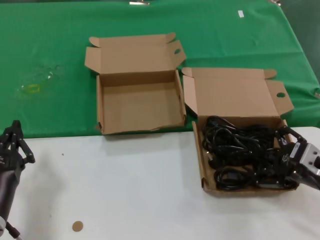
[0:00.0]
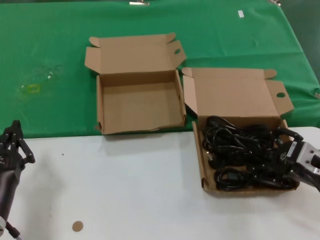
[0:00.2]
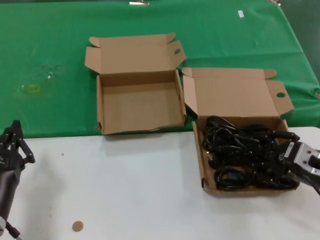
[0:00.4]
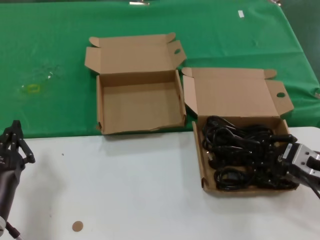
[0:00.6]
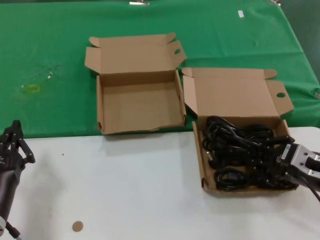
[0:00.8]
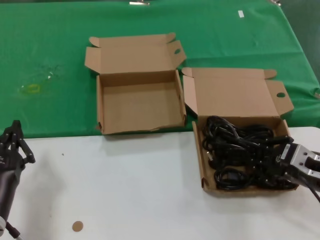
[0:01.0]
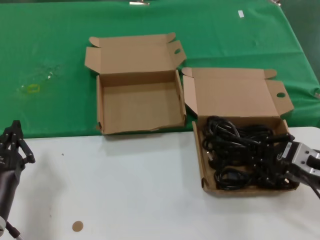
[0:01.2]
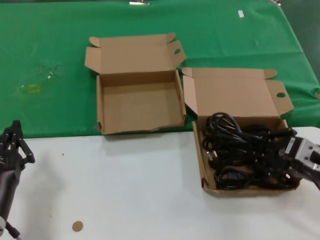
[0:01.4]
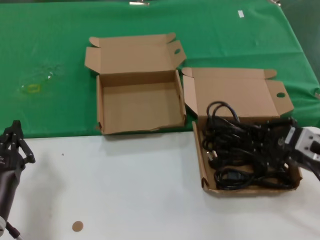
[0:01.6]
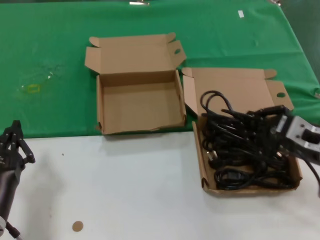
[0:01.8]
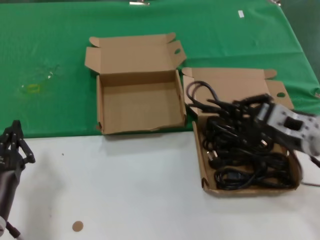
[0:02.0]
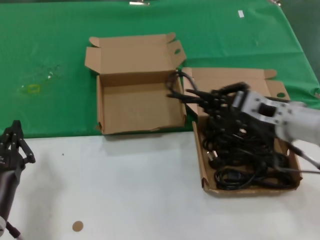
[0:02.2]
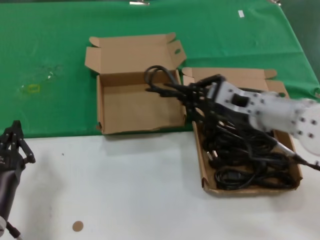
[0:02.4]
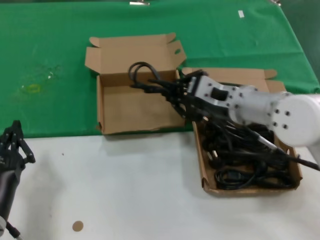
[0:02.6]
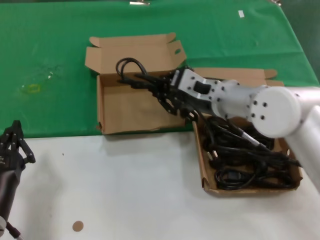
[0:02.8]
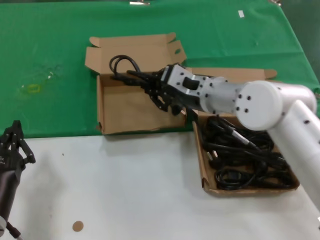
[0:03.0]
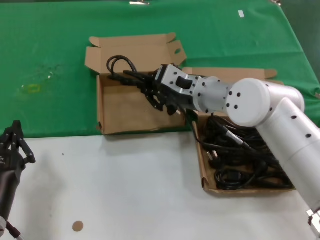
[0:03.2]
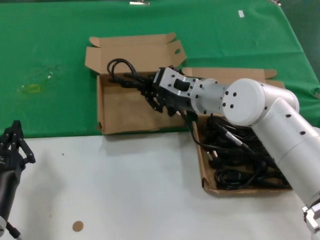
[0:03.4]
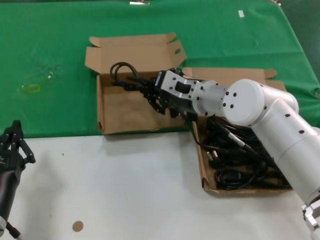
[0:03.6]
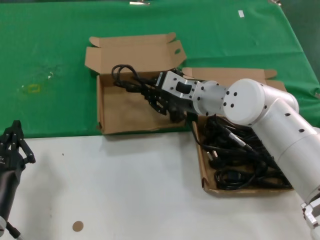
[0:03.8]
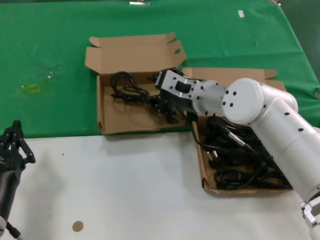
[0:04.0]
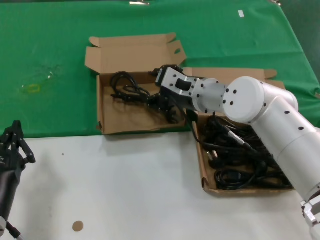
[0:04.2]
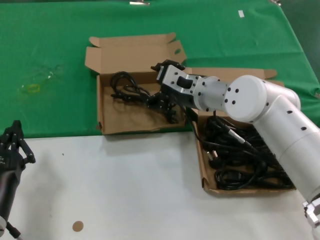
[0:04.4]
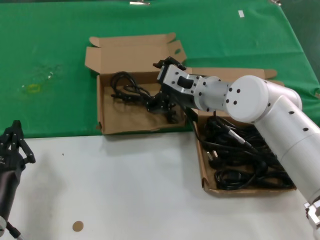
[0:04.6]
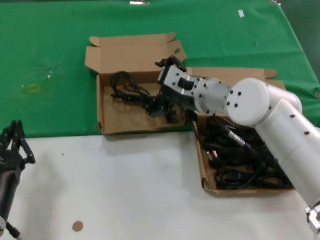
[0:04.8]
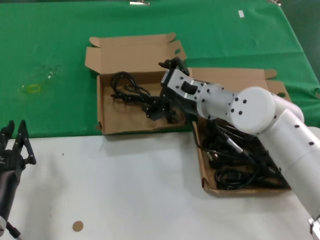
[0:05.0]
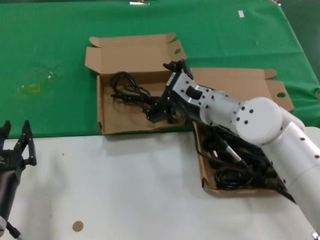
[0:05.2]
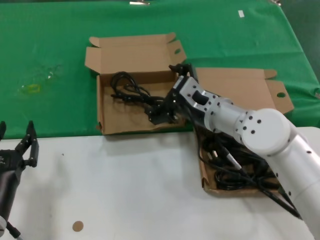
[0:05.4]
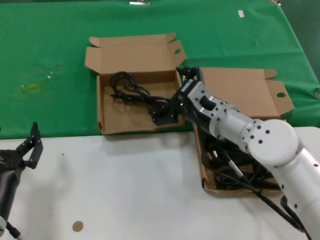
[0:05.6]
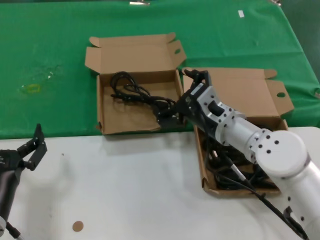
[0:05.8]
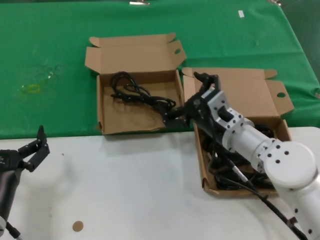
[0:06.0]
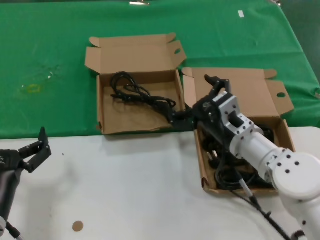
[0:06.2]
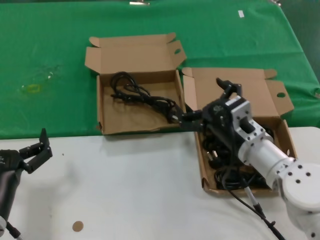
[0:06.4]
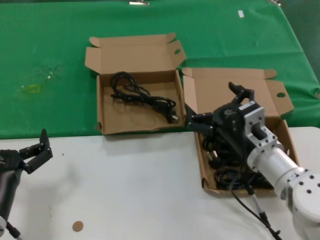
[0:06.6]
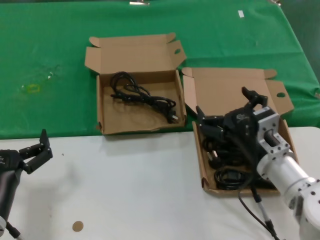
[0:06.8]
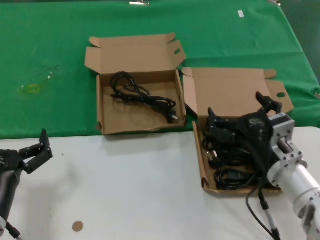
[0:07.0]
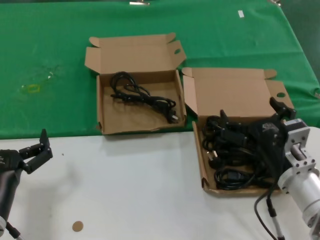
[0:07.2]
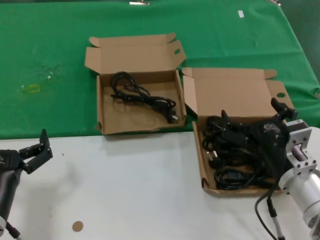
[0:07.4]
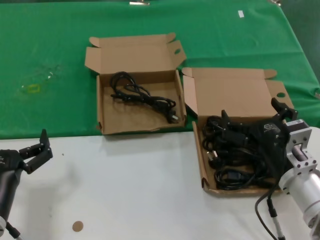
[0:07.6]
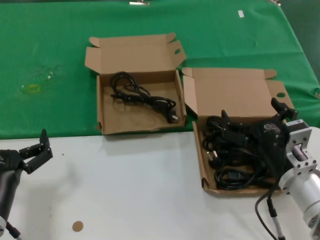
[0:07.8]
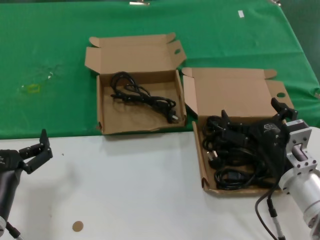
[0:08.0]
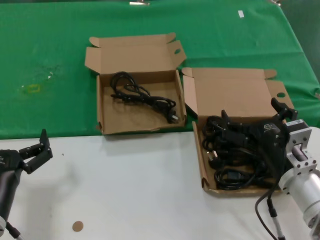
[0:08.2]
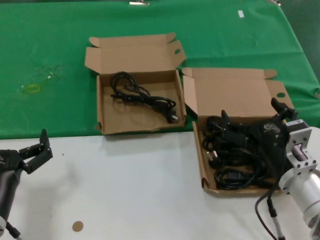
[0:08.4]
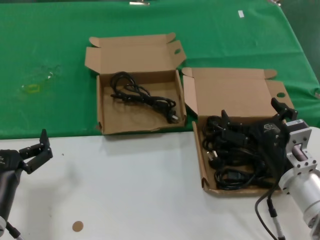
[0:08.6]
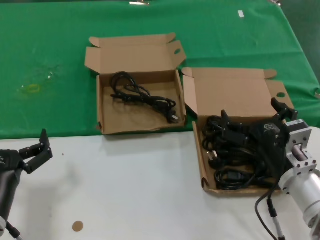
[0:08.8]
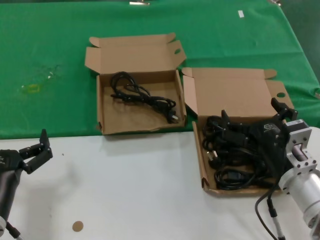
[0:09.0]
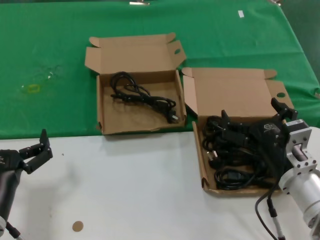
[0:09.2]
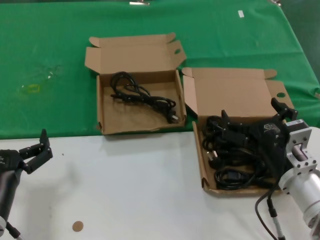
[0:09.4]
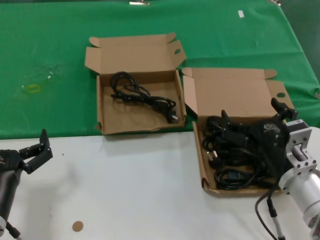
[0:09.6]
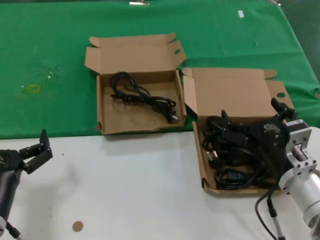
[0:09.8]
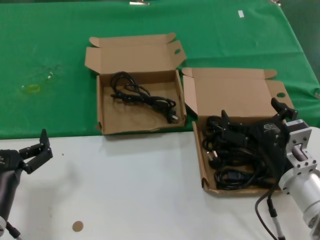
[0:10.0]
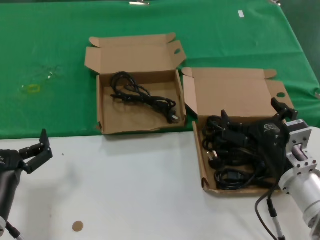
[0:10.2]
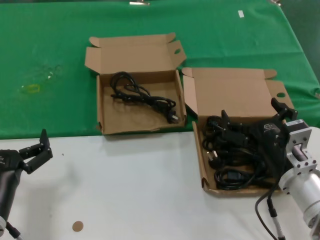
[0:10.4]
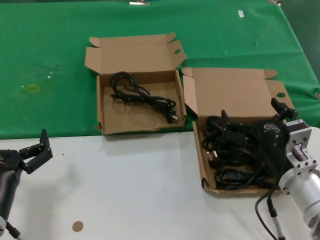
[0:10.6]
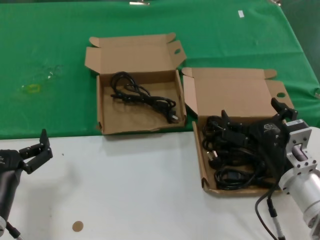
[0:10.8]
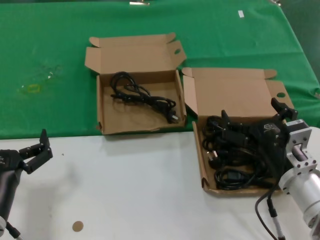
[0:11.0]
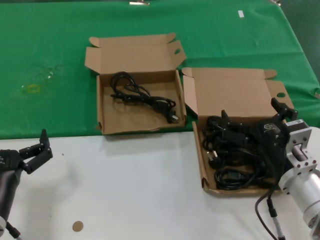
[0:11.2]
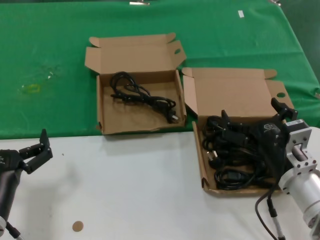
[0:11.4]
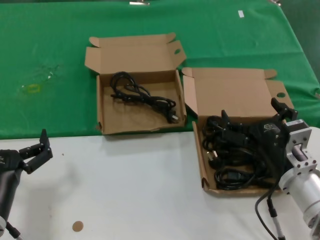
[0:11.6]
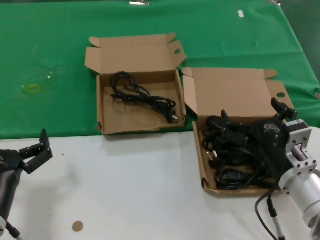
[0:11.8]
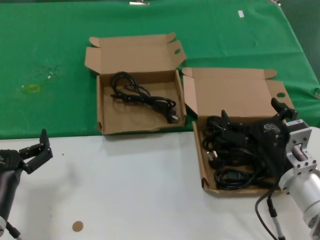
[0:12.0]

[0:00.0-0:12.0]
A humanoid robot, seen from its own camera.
Task of the whole recording: take the parts from the box containing them and put them into an empty box.
Step, 0:01.0 to 0:04.0: Place the data cable in the another box.
0:00.0 to 0:01.6: There are only small adjustments of the hands.
0:01.6 to 0:03.0: The right hand travels to the left and forward by some 25 cm.
0:03.0 to 0:04.4: The hands make only small movements.
0:04.4 to 0:06.0: The right hand heads backward and downward, covering some 10 cm.
0:06.0 to 0:07.6: The right hand is displaced backward and to the right by roughly 15 cm.
0:07.6 to 0:12.0: The two hands keep their place.

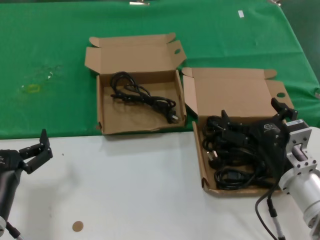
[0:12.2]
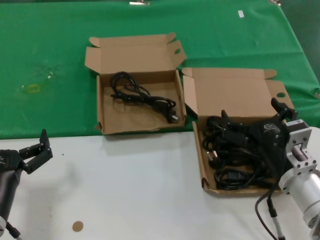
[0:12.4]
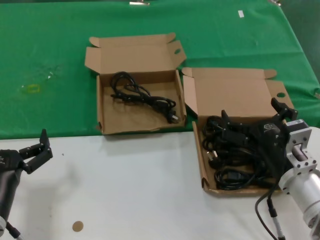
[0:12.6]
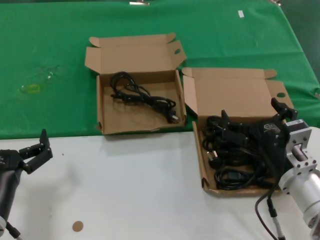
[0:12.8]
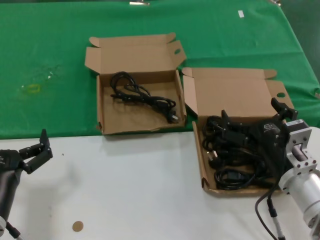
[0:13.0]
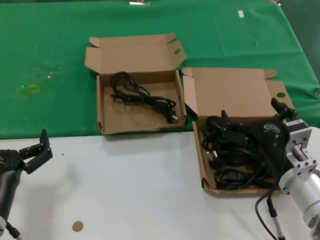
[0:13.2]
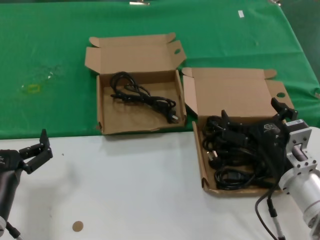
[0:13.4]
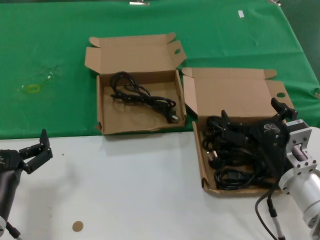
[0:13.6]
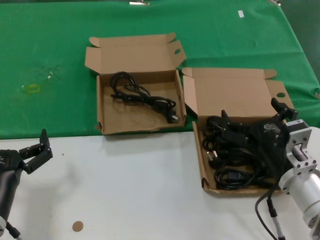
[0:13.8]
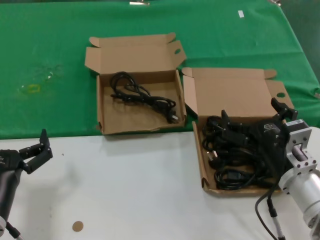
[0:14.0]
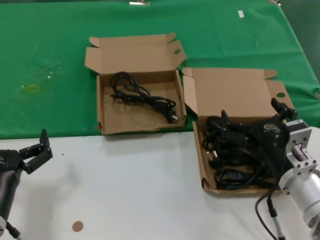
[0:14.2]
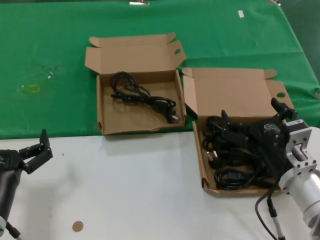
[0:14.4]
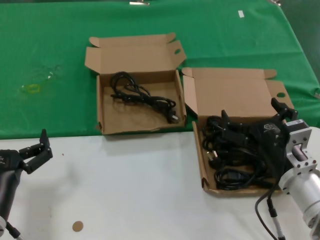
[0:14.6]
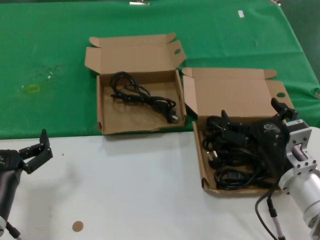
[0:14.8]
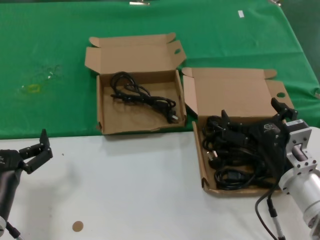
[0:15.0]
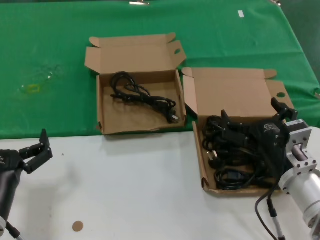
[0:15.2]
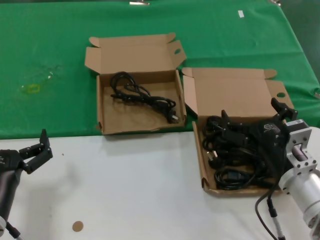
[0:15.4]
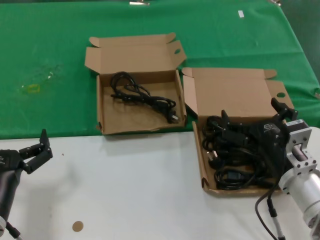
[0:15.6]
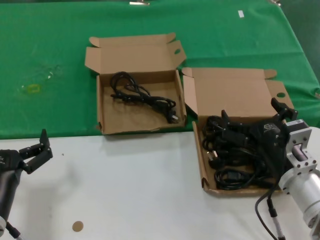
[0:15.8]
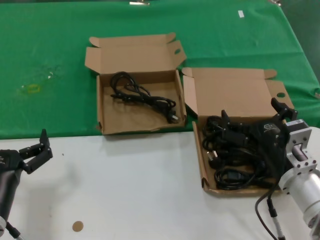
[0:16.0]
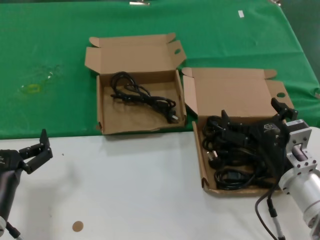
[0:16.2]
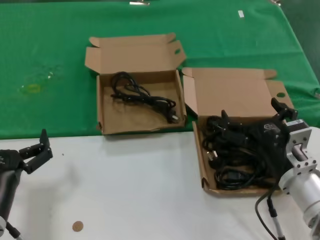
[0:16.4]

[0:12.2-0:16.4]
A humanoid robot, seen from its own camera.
Task of the whole recording: take the parts from the box containing them and put them into an empty box.
0:12.2 to 0:16.4: The two hands keep their place.

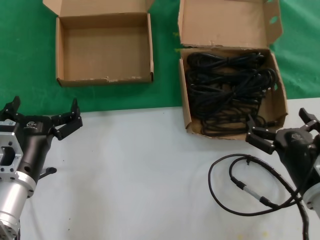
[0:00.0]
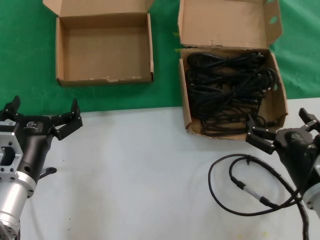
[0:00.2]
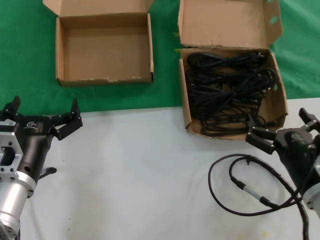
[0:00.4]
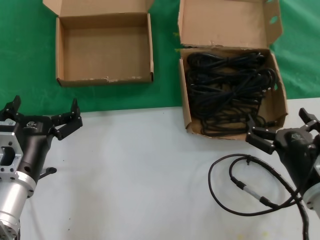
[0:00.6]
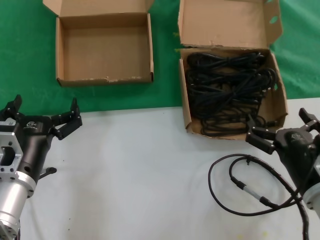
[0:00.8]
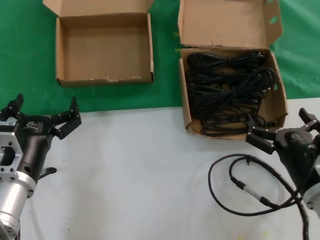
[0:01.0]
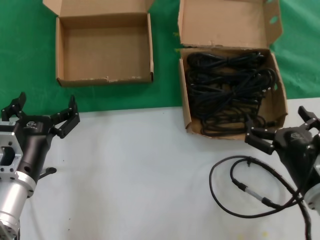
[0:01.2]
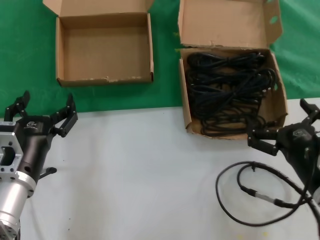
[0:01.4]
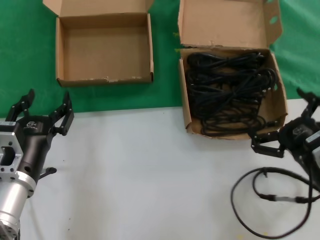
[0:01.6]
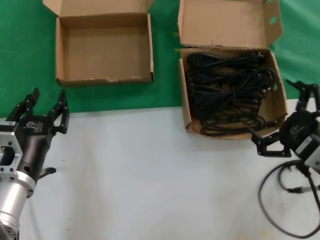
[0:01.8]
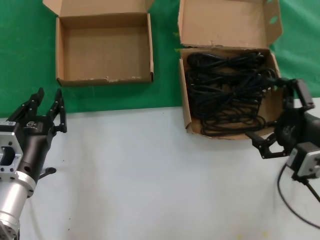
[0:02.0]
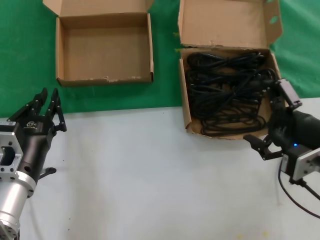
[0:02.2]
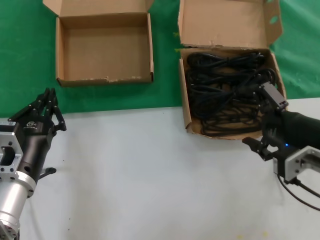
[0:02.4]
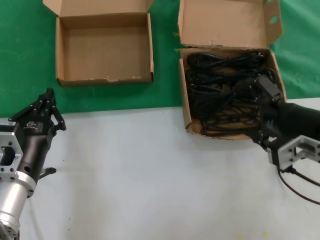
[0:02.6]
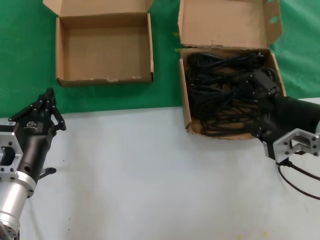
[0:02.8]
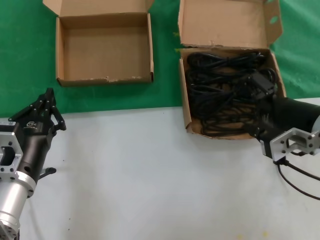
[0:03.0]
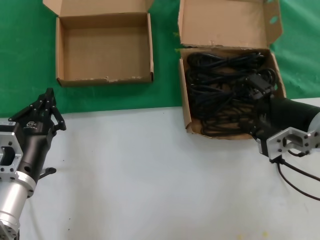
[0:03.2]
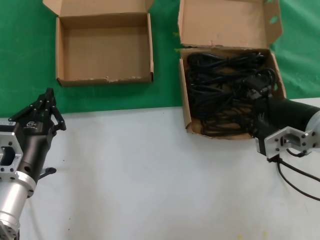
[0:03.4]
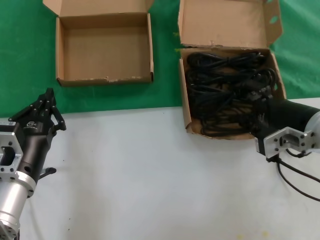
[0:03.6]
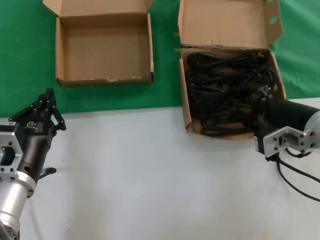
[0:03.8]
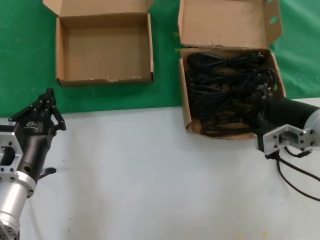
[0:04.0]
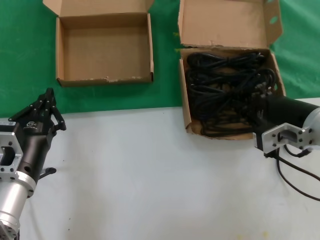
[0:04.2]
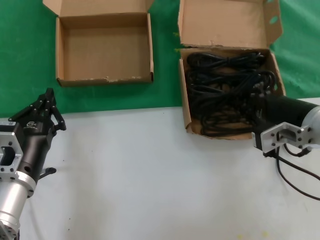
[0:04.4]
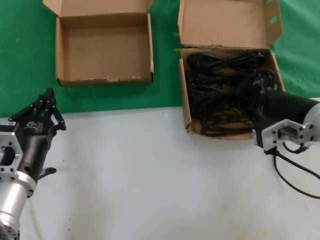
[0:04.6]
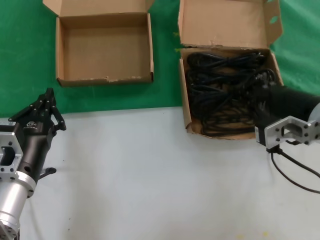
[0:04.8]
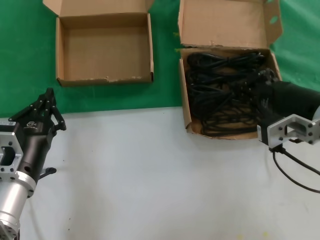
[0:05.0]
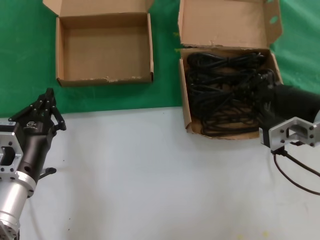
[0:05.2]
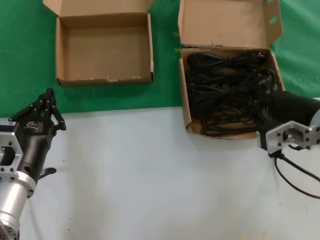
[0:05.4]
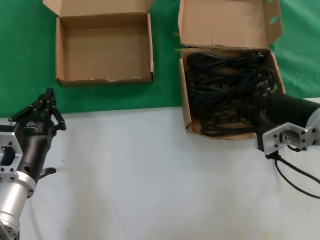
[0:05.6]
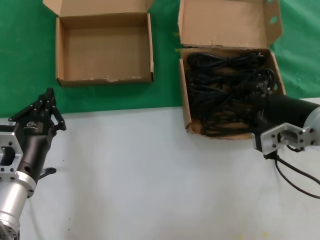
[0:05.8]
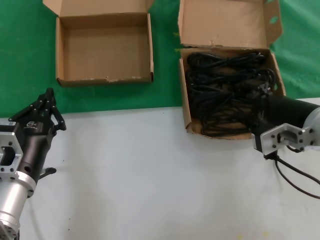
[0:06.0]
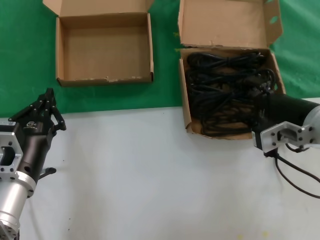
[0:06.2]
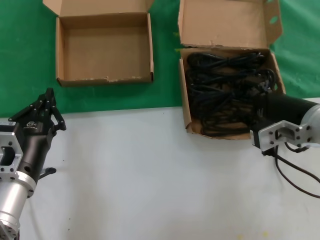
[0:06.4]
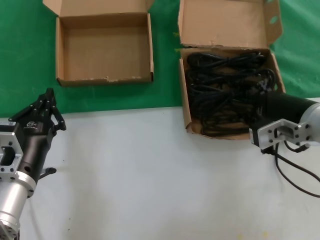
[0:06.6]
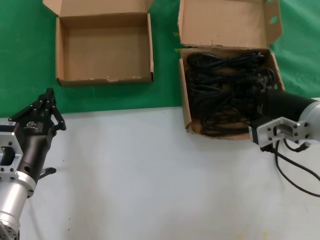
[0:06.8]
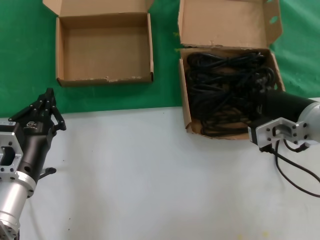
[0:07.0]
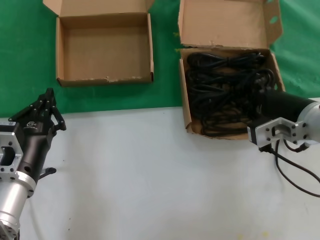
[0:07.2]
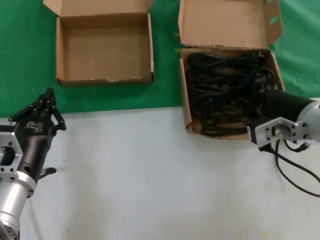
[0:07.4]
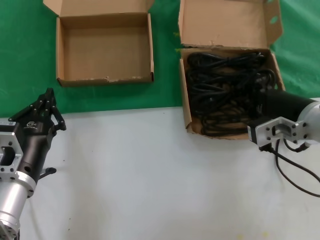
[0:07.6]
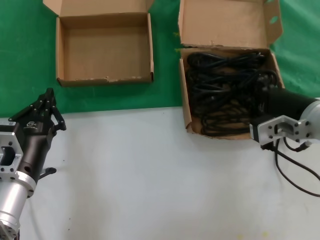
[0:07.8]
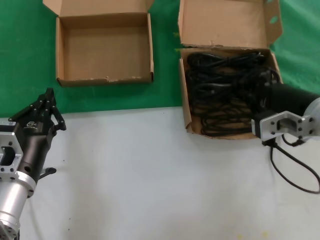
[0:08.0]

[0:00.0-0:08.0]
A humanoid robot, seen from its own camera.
Task of the whole recording: take the parts from the box containing them and put them into an empty box.
Step, 0:00.0 to 0:07.0: Grasp the data cable.
0:01.6 to 0:03.2: The right hand shifts about 10 cm upward and forward.
0:03.2 to 0:06.4: The hands move only a little.
0:06.4 to 0:08.0: Neither hand changes place.
